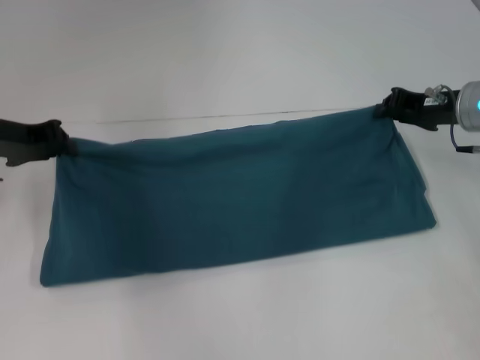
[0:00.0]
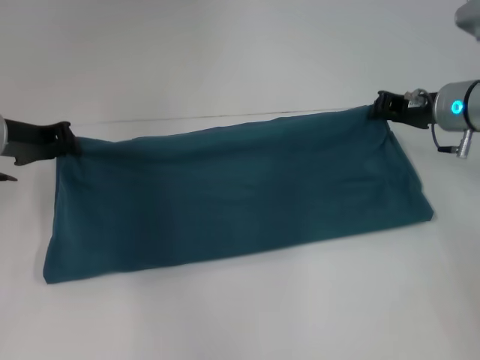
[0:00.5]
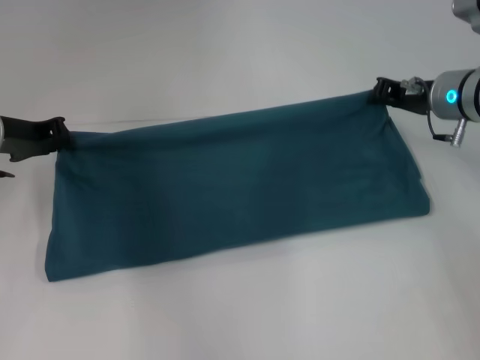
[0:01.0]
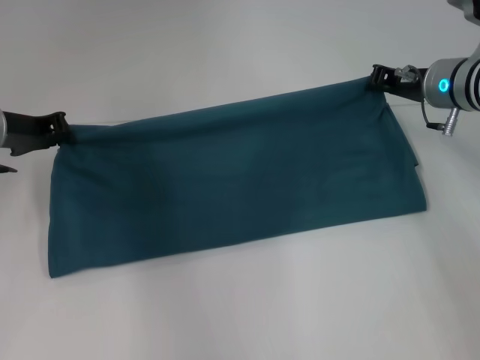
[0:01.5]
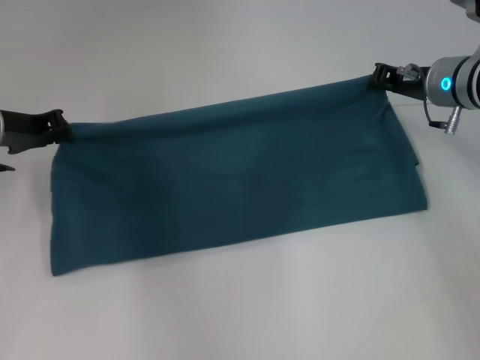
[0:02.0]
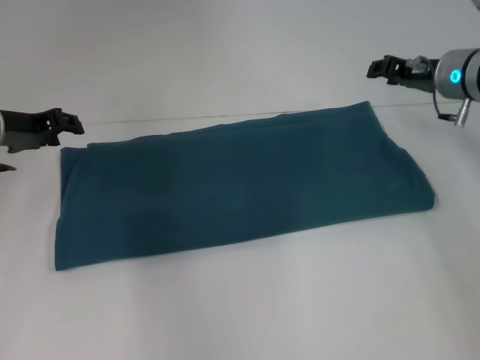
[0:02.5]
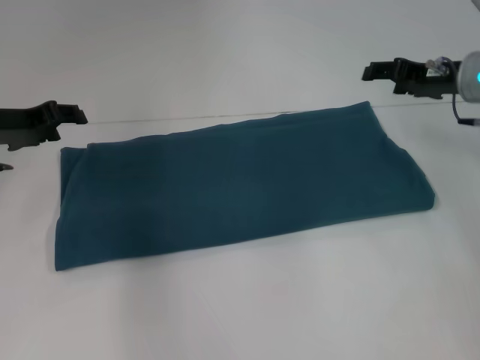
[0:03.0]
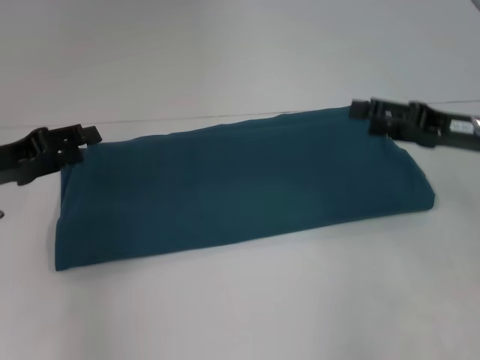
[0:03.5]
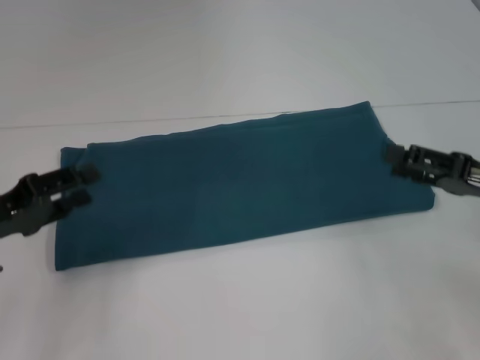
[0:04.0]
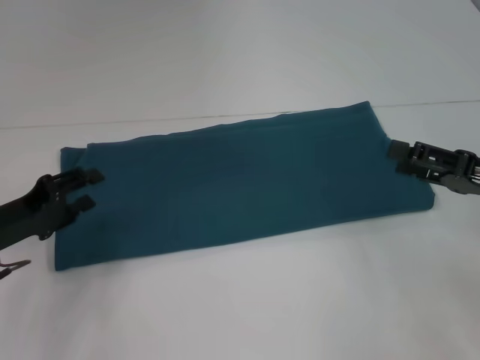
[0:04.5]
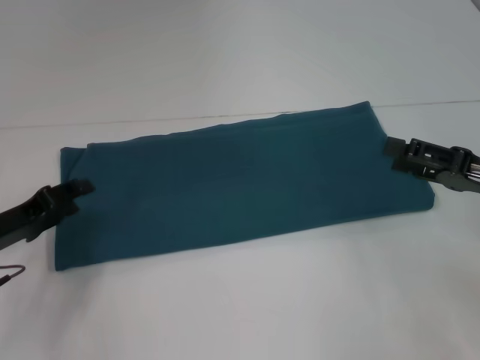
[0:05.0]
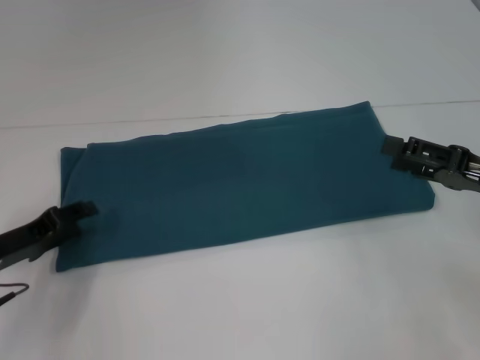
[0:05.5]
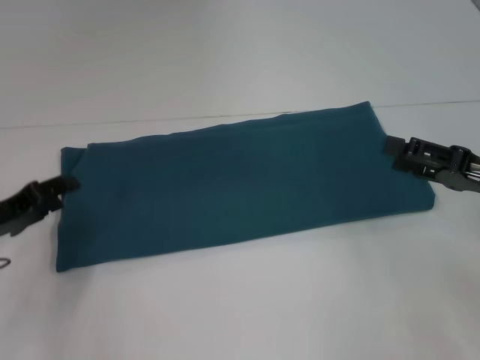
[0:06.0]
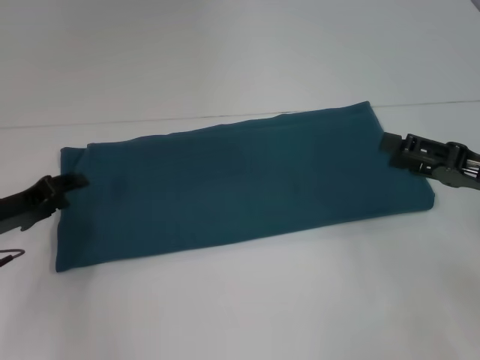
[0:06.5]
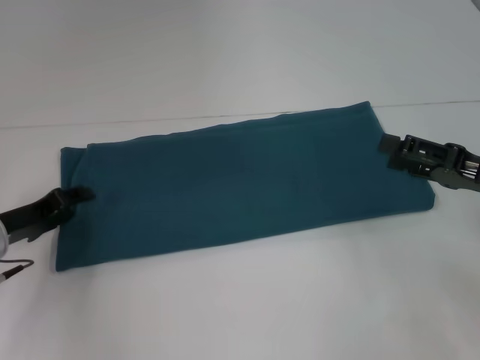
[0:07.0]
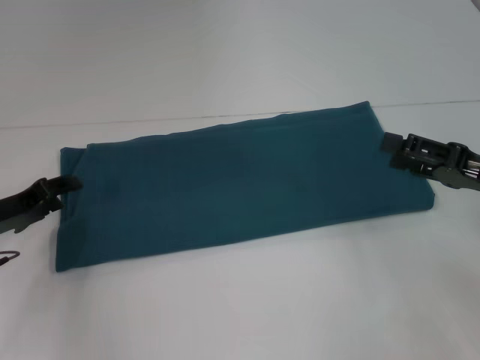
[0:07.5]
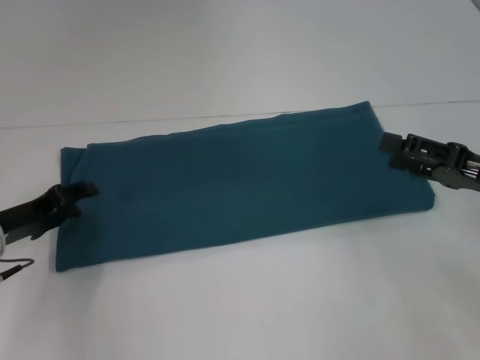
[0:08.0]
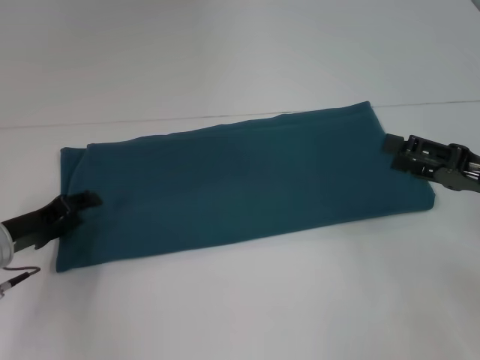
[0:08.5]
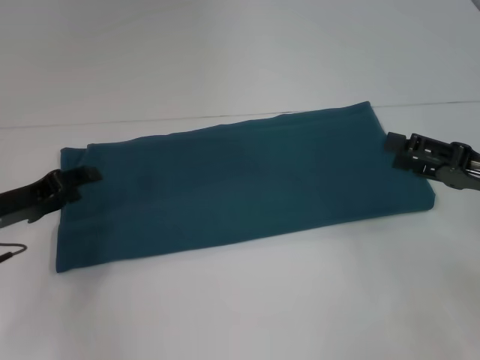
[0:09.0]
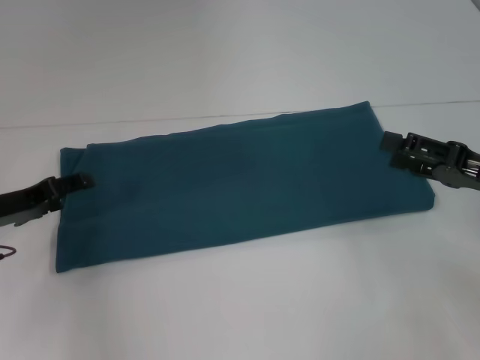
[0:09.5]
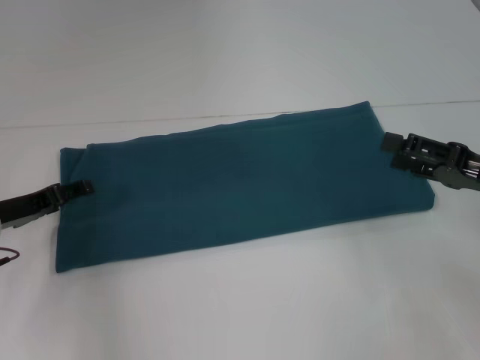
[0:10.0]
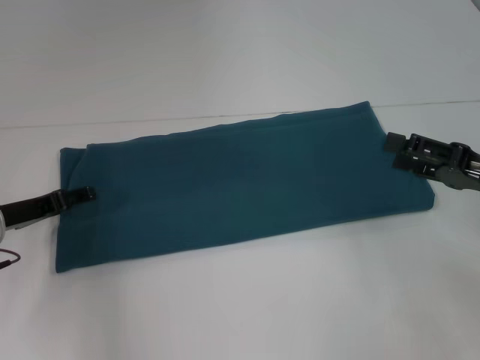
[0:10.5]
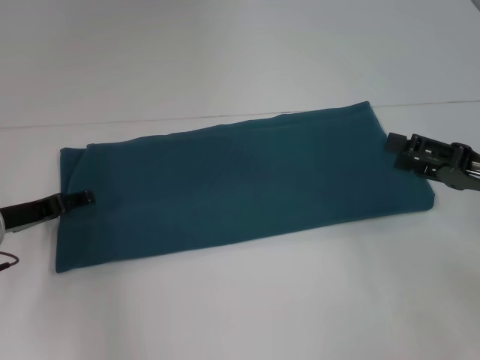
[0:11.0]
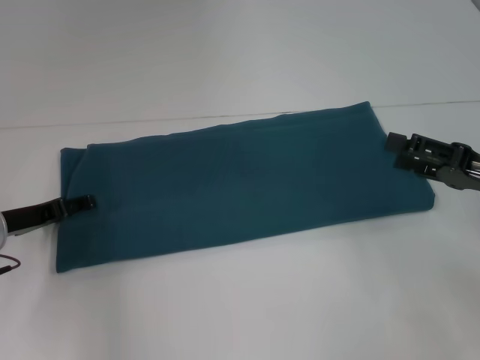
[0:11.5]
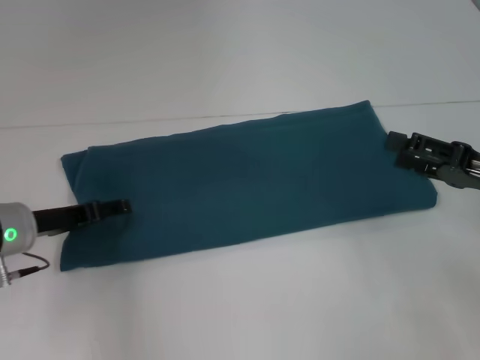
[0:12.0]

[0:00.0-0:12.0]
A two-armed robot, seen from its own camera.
Step, 0.0 to 2.0 s: Fold the clothes to the right.
0.0 to 2.0 s: The grippers make only small movements.
2.0 to 4.0 s: The left gripper is displaced backward by about 15 cm, and opens its fingers, while the right gripper goes roughly 20 cm backward and to the right, and opens.
4.0 to 6.0 s: The left gripper moves roughly 5 cm.
6.0 to 10.0 s: The grippers stay close to where they were, moving slightly.
10.0 to 12.0 s: There are only small adjustments of the grippers.

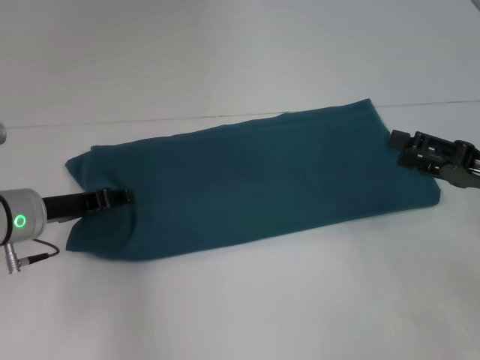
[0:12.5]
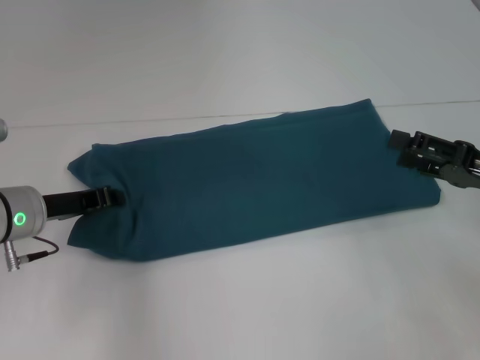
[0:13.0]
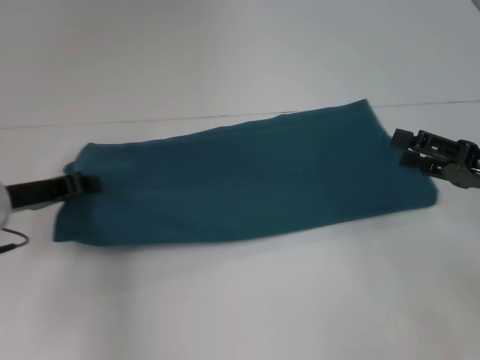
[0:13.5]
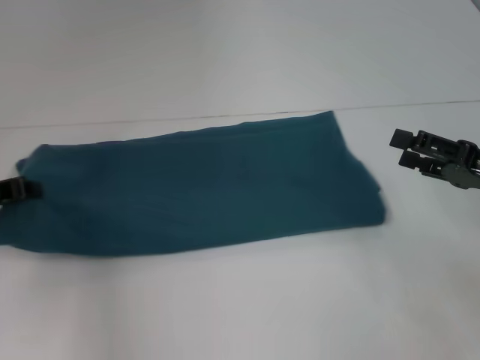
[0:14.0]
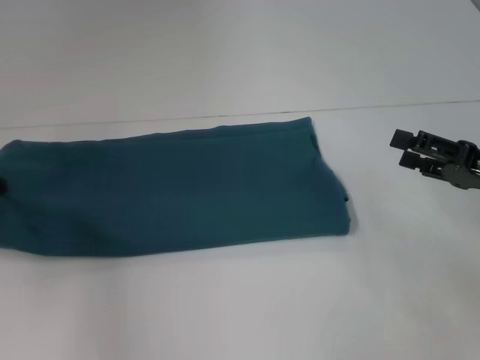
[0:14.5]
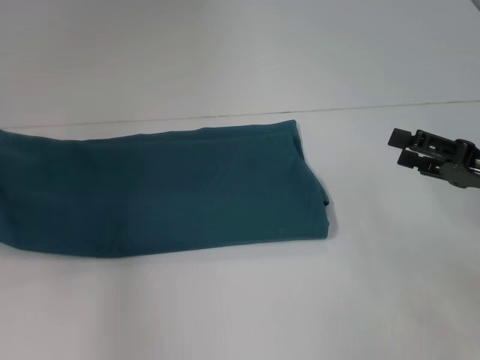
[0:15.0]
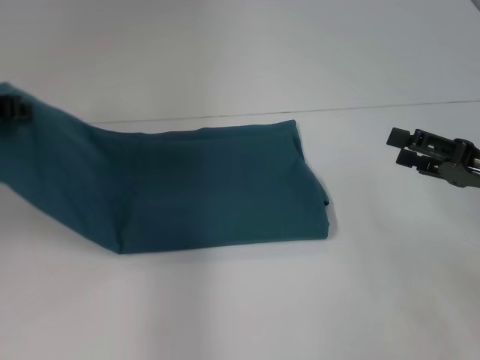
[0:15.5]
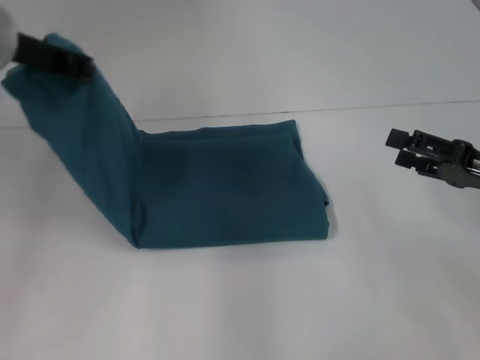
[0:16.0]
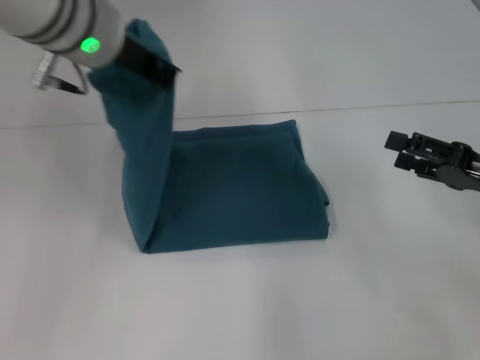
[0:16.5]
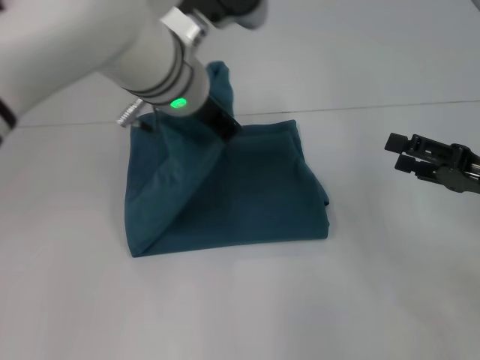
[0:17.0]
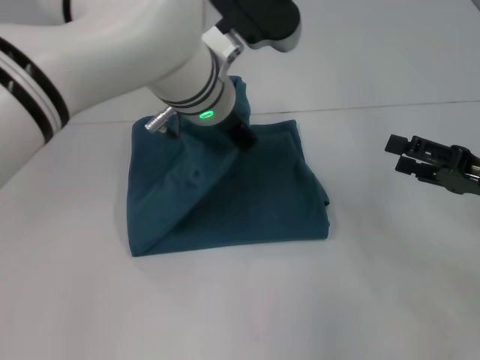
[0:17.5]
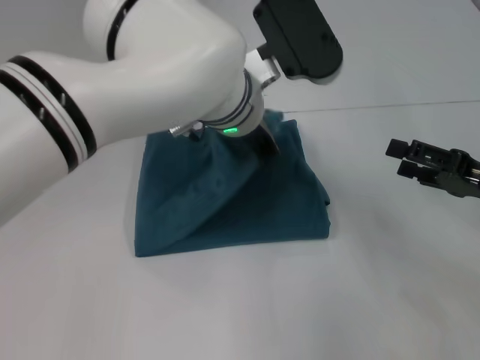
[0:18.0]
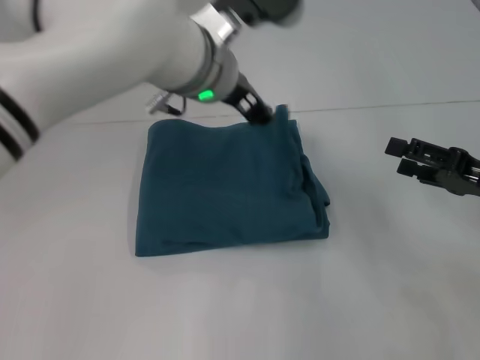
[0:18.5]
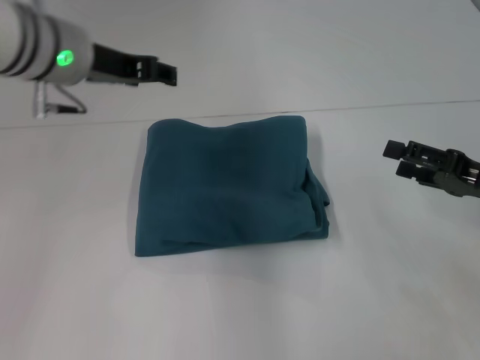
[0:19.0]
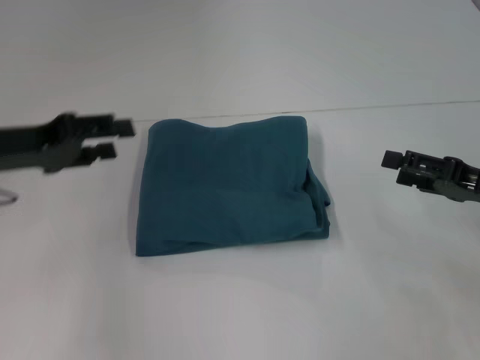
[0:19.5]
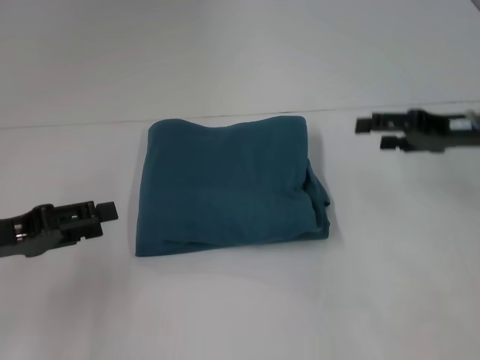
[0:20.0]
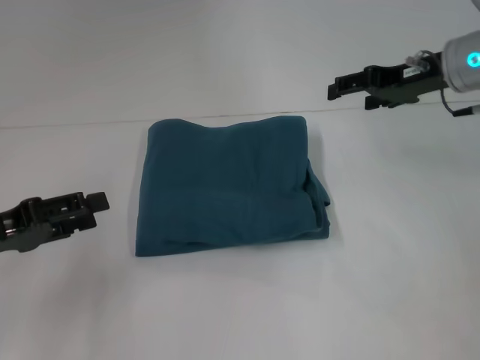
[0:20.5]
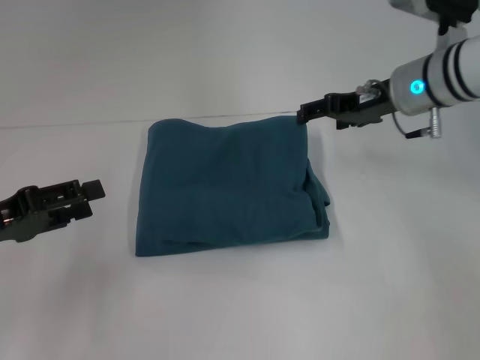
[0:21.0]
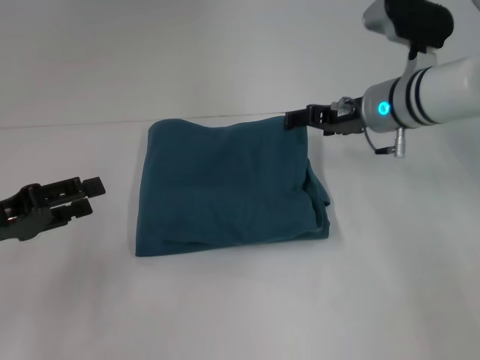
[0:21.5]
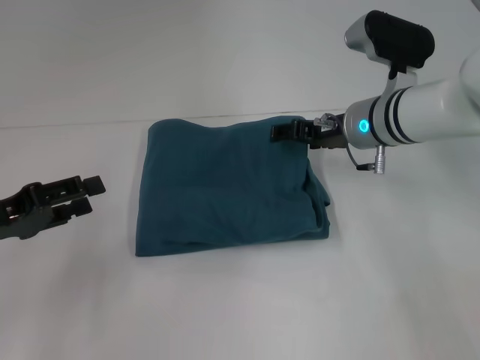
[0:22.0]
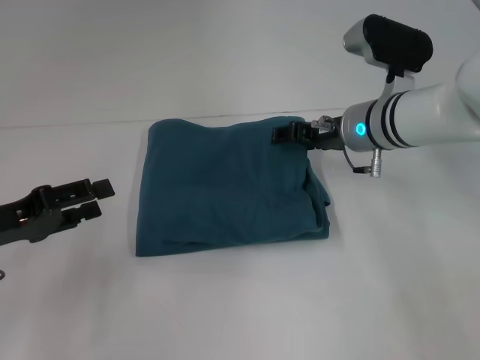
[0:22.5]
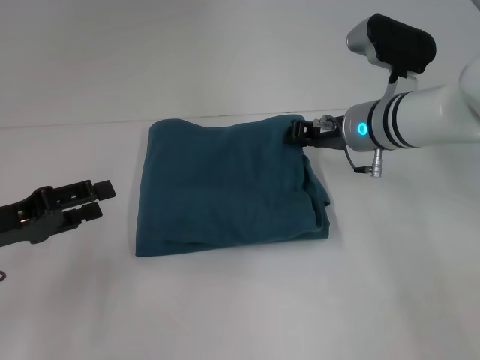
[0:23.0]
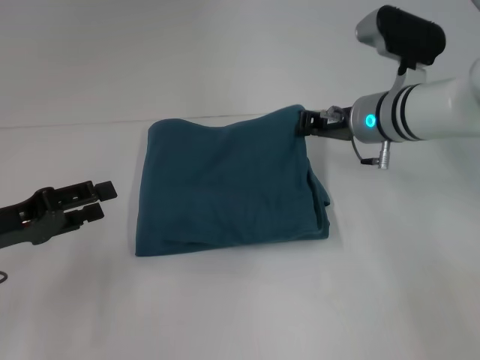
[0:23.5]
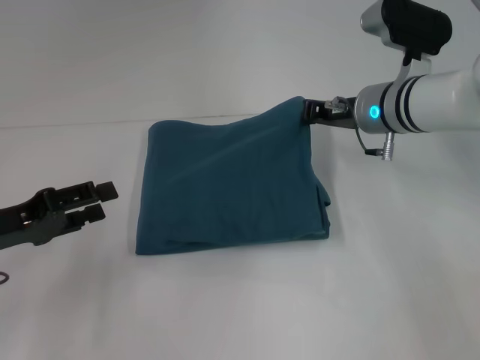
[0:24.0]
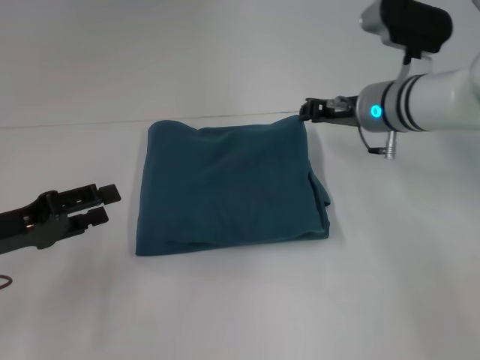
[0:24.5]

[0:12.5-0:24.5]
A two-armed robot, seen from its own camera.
Step, 12.5 to 18.5 s: Fold the clothes to the left.
12.5 to 14.5 s: The left gripper heads to the left, covering approximately 10 cm, and closes its fingers.
14.5 to 16.5 s: The left gripper goes roughly 30 cm to the right and upward.
16.5 to 18.5 s: The left gripper heads to the right, covering approximately 10 cm, and opens.
18.5 to 20.5 s: The left gripper travels to the left and downward by approximately 30 cm; the right gripper shifts about 20 cm forward, upward and to the left.
20.5 to 22.5 s: The right gripper heads to the left and downward, covering some 10 cm.
22.5 to 24.5 s: The right gripper closes up.

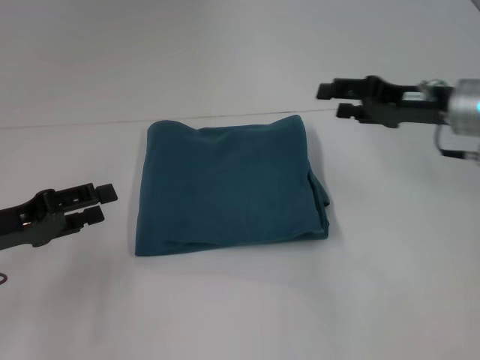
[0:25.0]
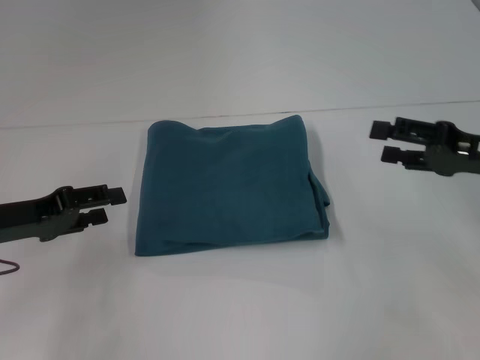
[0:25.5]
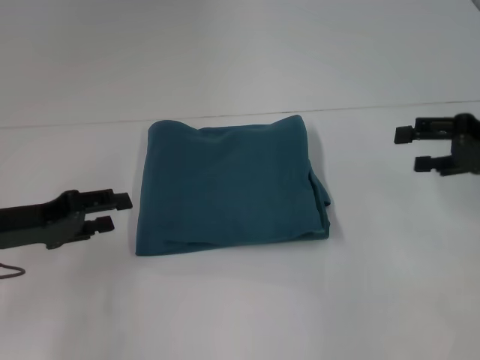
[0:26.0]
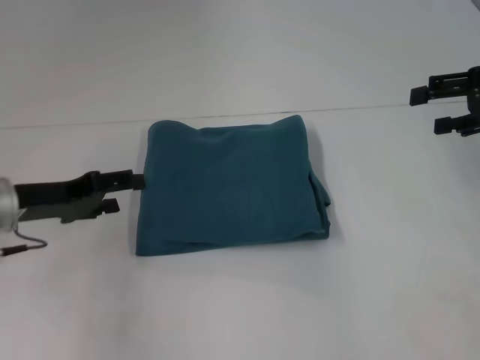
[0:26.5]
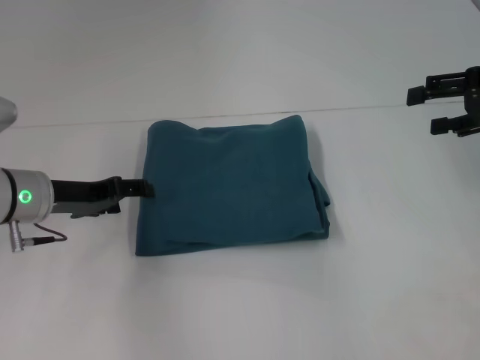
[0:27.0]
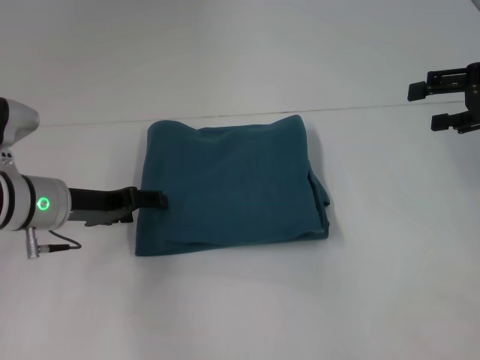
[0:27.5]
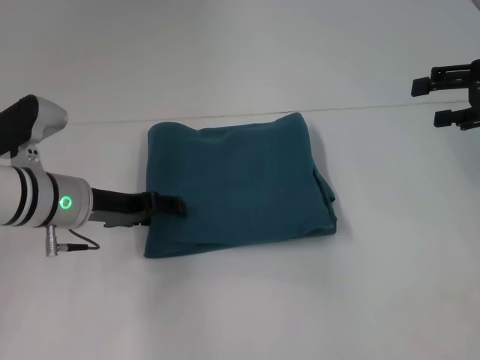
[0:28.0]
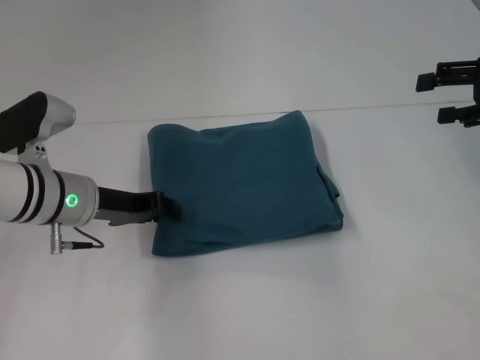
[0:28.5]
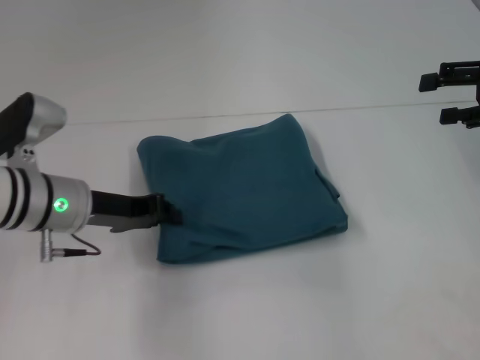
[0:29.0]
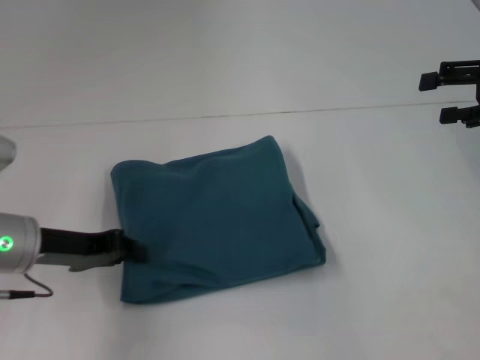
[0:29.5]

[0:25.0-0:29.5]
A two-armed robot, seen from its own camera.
25.0 to 27.0 s: The left gripper goes about 10 cm forward and to the right. The right gripper heads to the right and upward, covering some 10 cm.
27.0 to 29.5 s: The left gripper goes about 5 cm backward, and closes.
